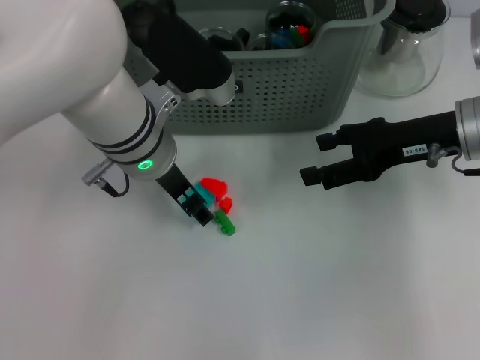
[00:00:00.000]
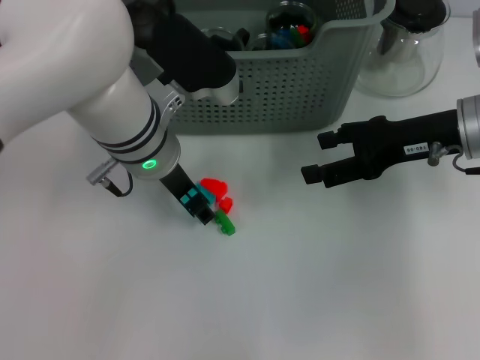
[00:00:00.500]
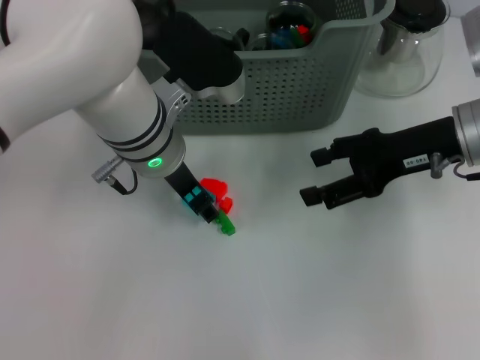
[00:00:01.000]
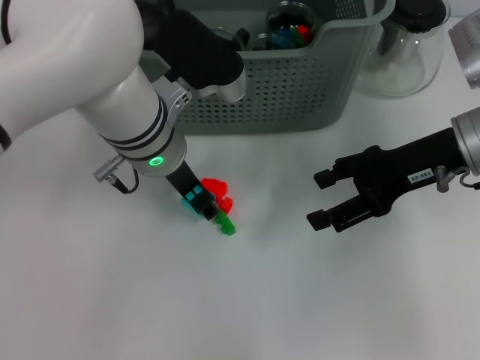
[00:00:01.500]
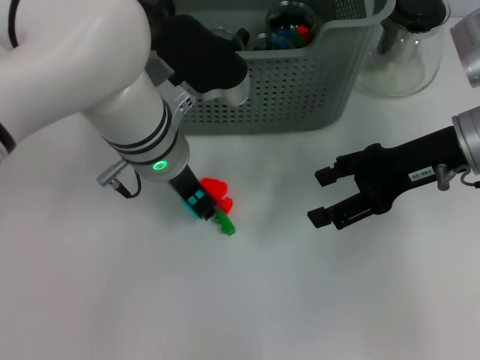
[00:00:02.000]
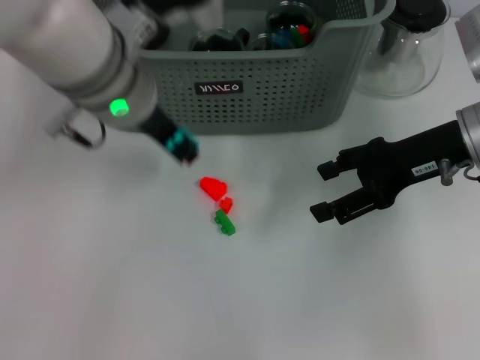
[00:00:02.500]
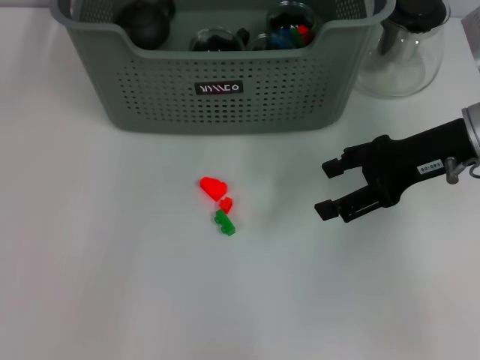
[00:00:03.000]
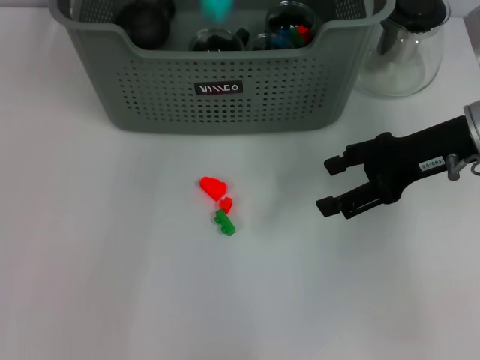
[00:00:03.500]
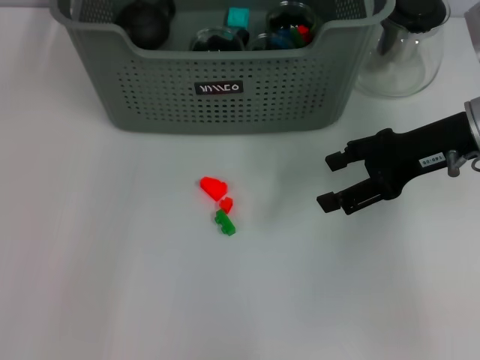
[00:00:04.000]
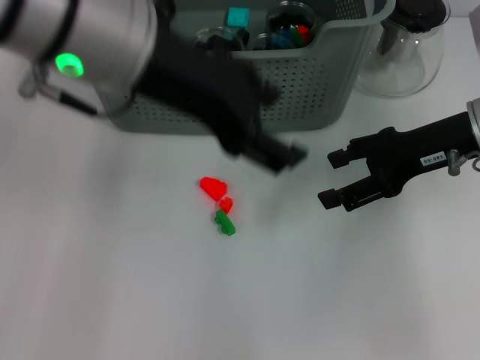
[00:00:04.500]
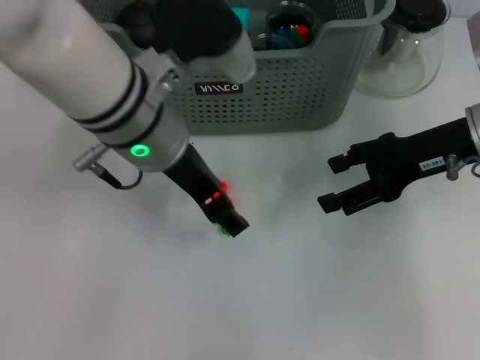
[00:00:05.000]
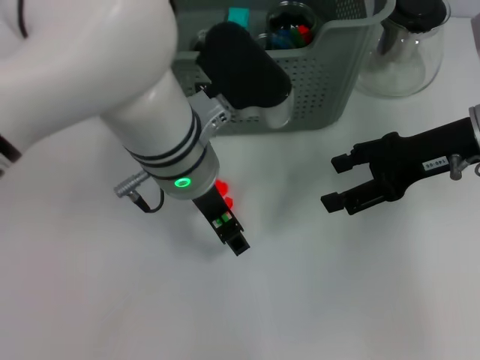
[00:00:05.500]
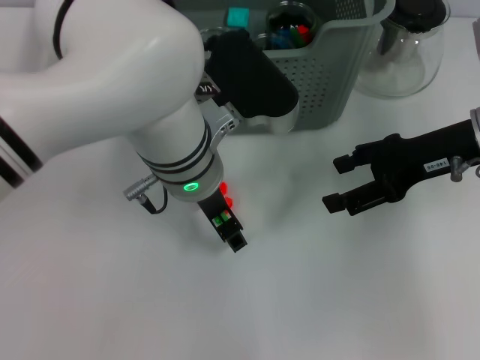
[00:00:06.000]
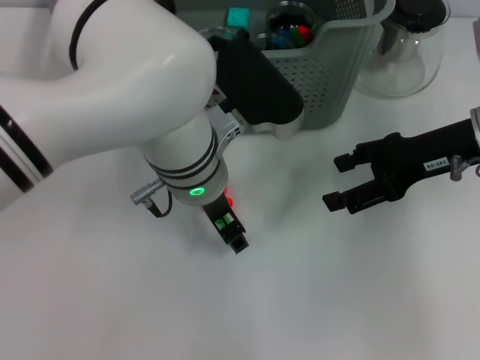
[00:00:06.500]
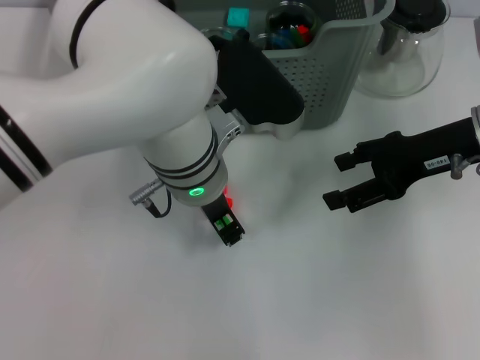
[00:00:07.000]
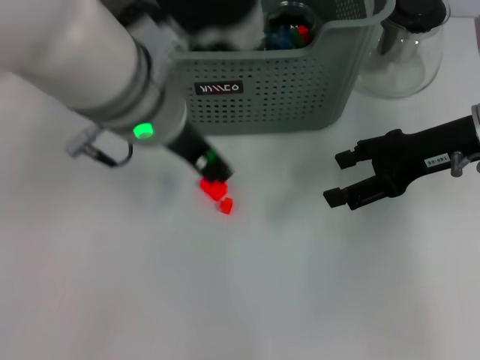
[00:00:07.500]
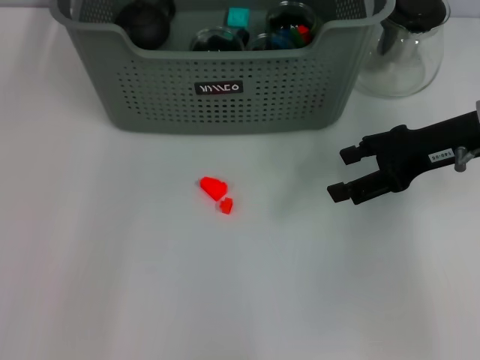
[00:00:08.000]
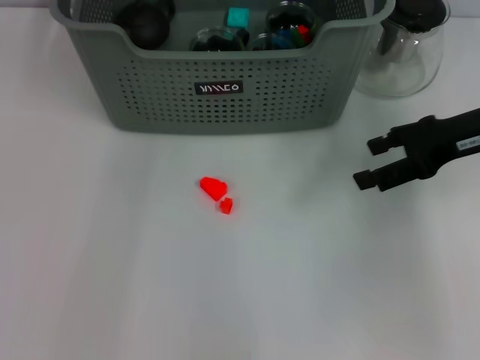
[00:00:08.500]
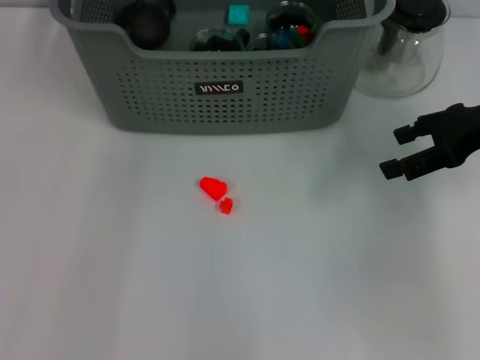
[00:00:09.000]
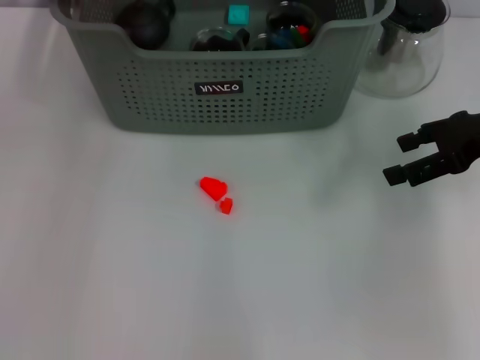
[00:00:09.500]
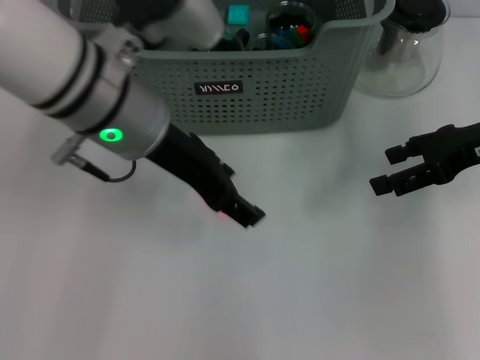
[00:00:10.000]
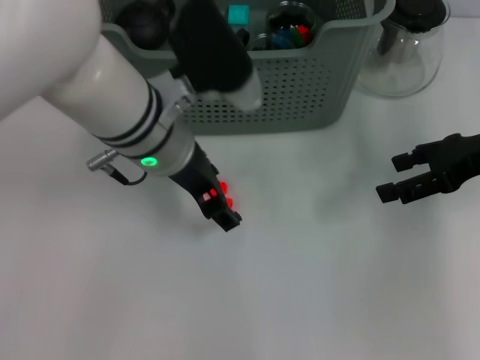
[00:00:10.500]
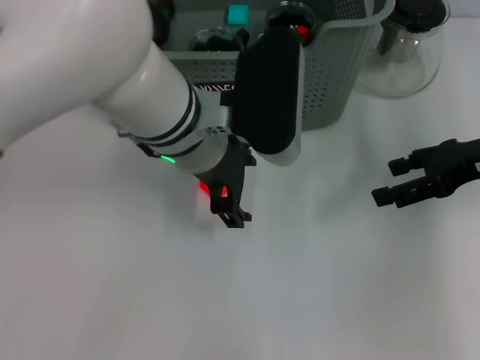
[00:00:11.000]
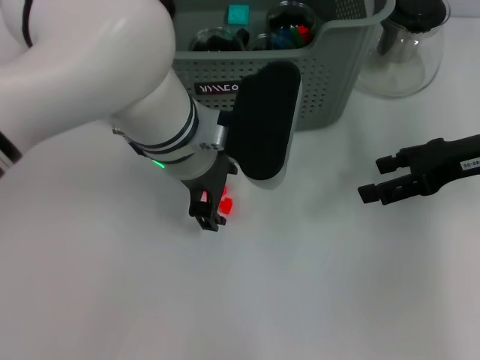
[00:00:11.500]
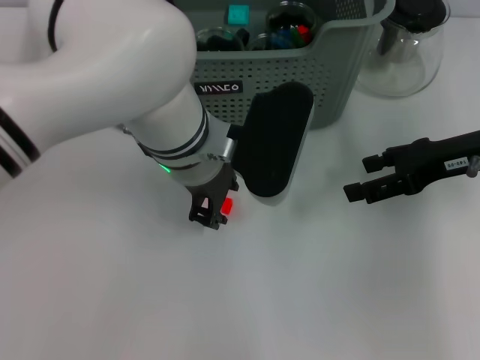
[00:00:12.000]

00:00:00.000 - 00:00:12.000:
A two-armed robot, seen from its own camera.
Task of the whole recording: pick up the teacup on the table and place it into the storage bin, pick up the block on the table and place it into the storage bin.
Step, 00:00:02.000 - 00:00:03.500: Place the light blue block in the storage box with left gripper.
Step, 00:00:04.000 - 00:00:06.500: Grasp the green block with left gripper.
Step, 00:00:07.500 - 00:00:08.500: Place the green block in the storage box with left gripper.
00:00:00.000 - 00:00:02.000: The left gripper closes its fingers.
00:00:02.000 - 00:00:04.000: The left gripper moves up and down over about 20 cm, changing direction 2 times, and opens.
00:00:04.000 - 00:00:06.000: The left gripper shifts some 20 cm downward.
00:00:06.000 - 00:00:08.000: The left gripper shifts roughly 20 cm upward, and closes up.
00:00:08.000 - 00:00:10.000: The left gripper goes some 15 cm downward and backward, and opens up.
00:00:10.000 - 00:00:12.000: The left gripper travels downward and to the right by about 10 cm, and closes up.

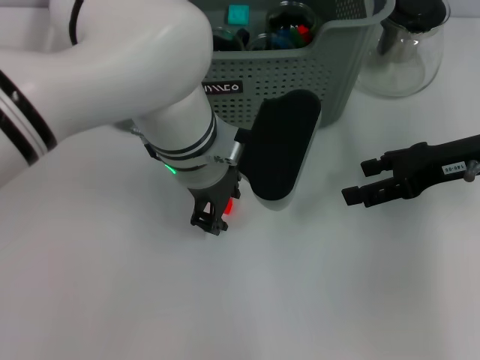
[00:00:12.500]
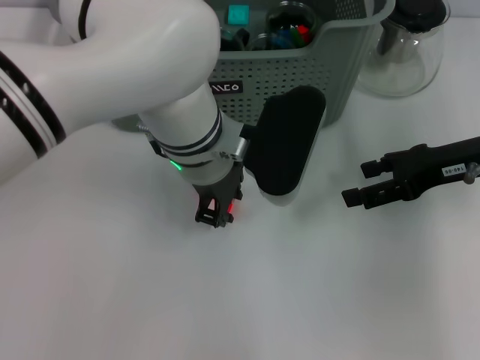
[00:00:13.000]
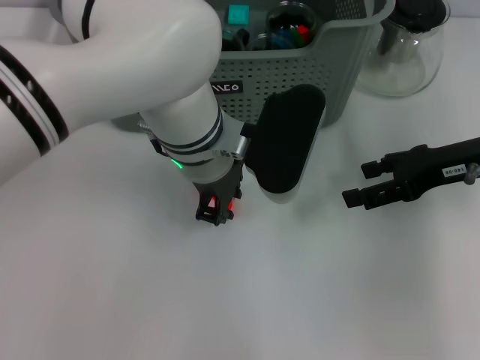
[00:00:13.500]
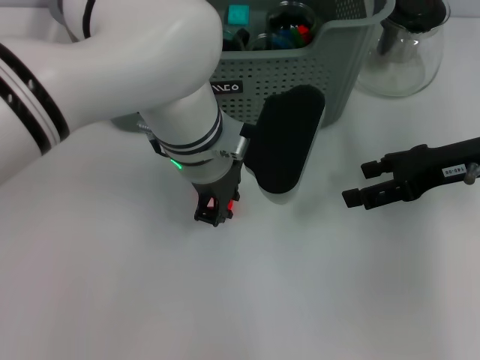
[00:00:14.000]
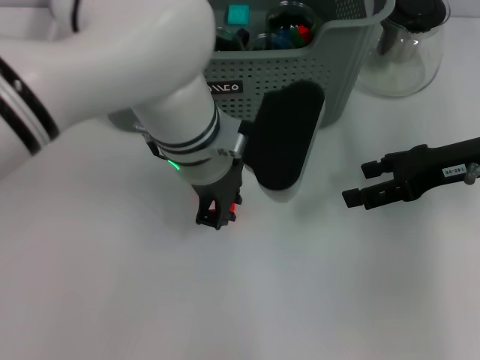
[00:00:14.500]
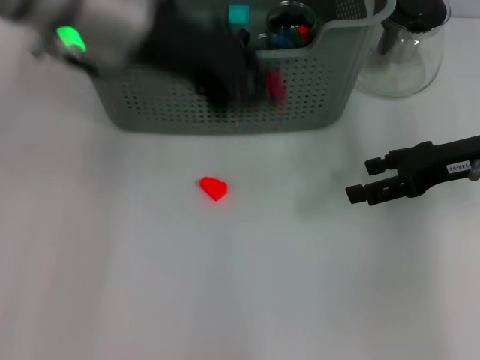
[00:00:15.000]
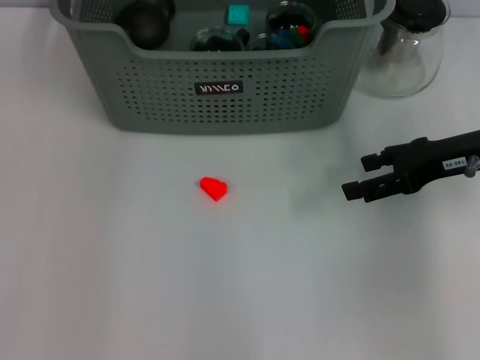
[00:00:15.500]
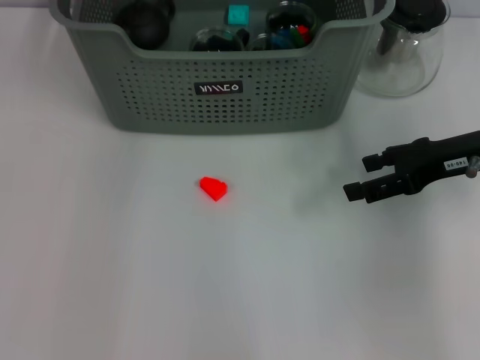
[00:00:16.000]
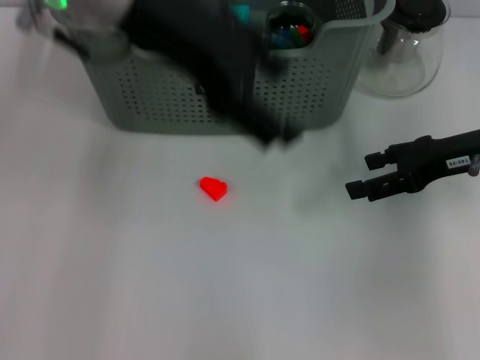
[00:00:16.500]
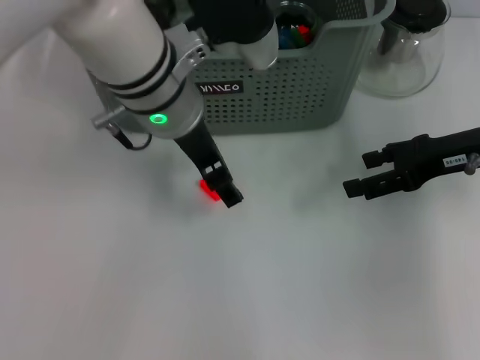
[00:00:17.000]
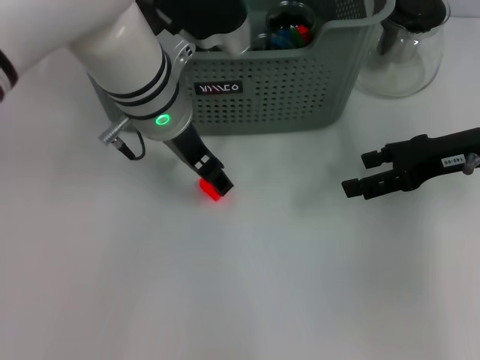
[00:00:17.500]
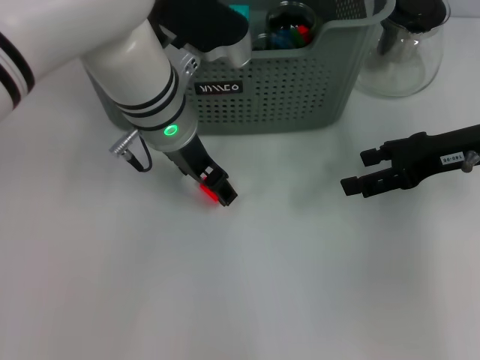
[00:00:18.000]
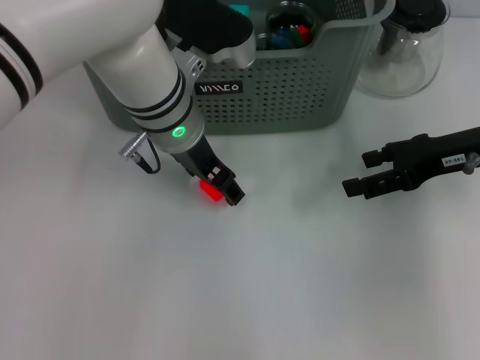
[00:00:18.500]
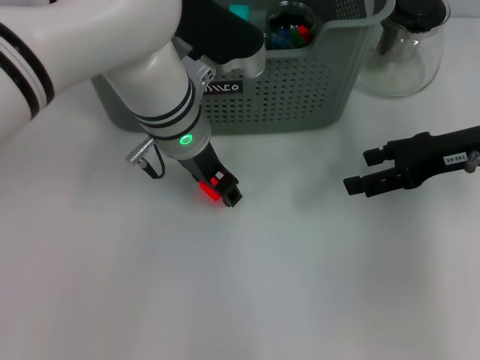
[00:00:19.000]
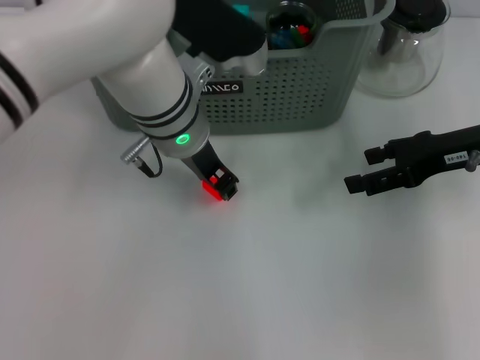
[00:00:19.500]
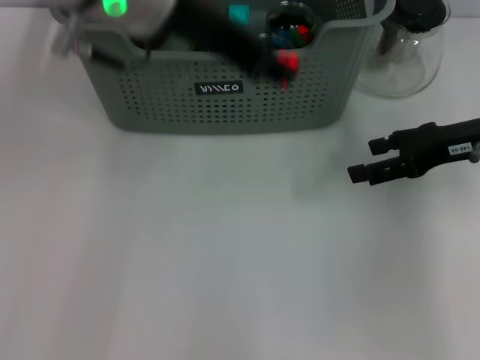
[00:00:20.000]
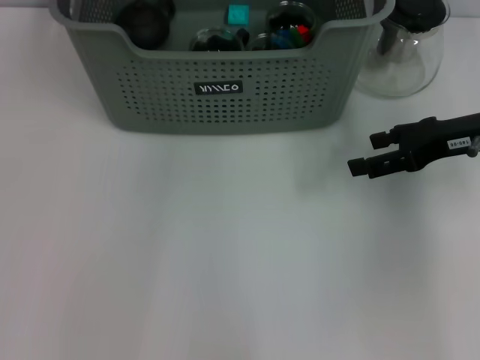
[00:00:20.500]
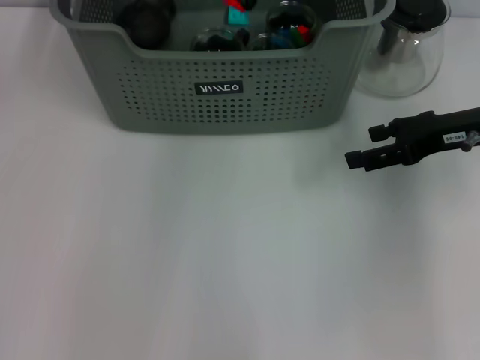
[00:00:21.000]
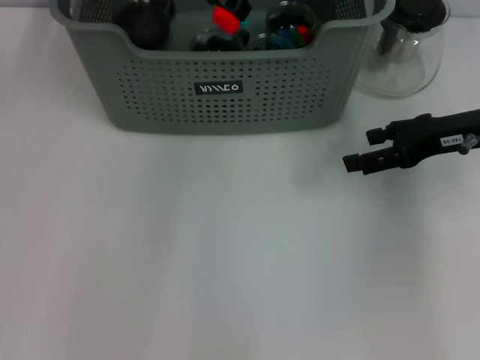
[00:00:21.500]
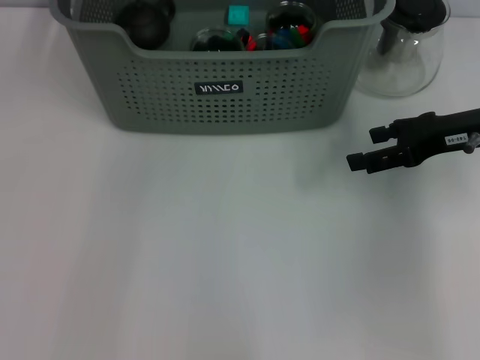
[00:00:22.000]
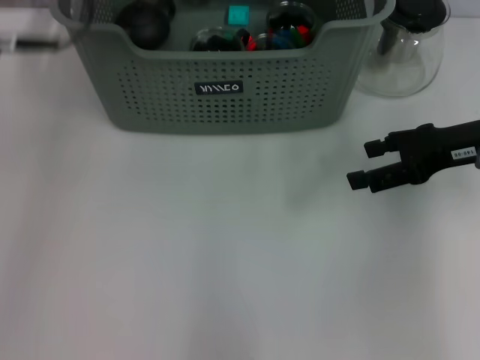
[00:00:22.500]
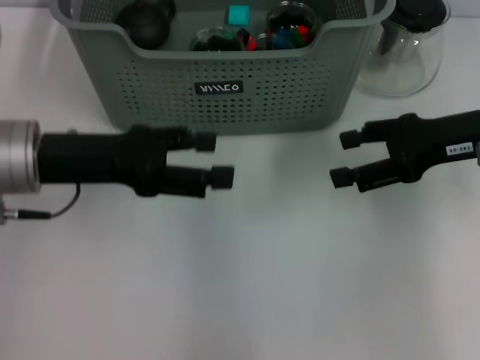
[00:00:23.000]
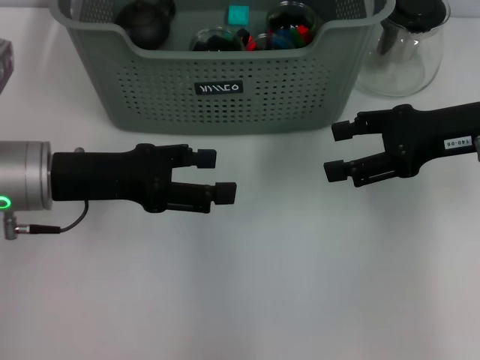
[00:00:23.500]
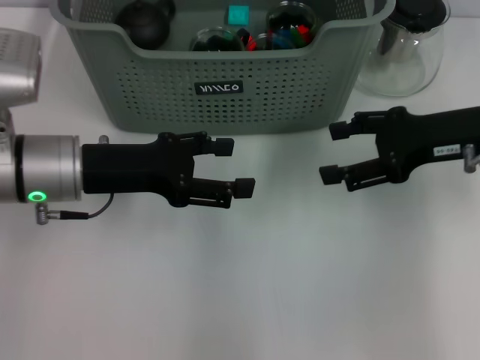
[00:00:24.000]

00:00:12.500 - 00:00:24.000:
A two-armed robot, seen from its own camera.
Task of the whole recording: pick up the teacup on the table and place it into the storage bin, pick up the block on the table and place it into the storage bin.
Step, 00:00:14.500 - 00:00:15.500: Place the orange block in the storage box with left gripper.
Step, 00:00:16.000 - 00:00:19.000: Grasp the orange block with left gripper.
Step, 00:00:19.500 - 00:00:21.500: Place the orange block in the storage box with left gripper.
00:00:12.500 - 00:00:14.500: The left gripper closes.
00:00:14.500 - 00:00:16.500: The left gripper goes approximately 15 cm upward and to the left, and opens its fingers.
00:00:16.500 - 00:00:18.500: The left gripper moves downward, some 15 cm.
00:00:18.500 - 00:00:20.000: The left gripper heads upward, covering some 15 cm, and closes up.
00:00:20.000 - 00:00:22.000: The left gripper travels forward by about 10 cm, and opens.
00:00:22.000 - 00:00:24.000: The left gripper is displaced downward, backward and to the left by roughly 25 cm.
